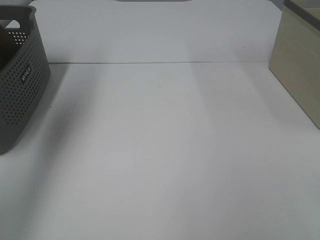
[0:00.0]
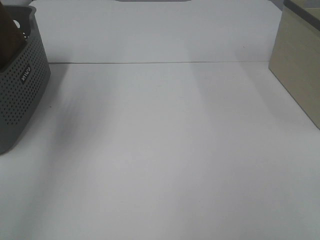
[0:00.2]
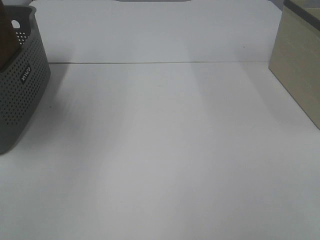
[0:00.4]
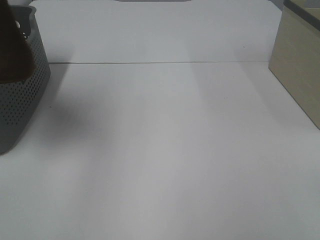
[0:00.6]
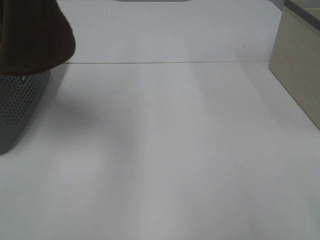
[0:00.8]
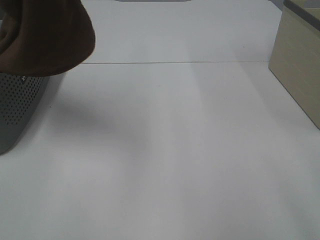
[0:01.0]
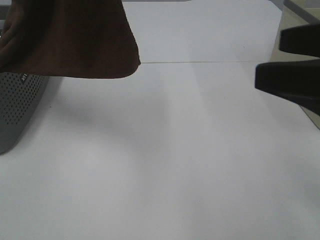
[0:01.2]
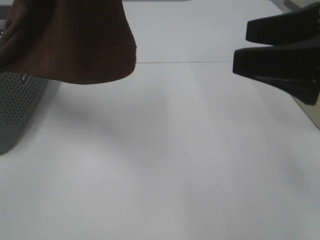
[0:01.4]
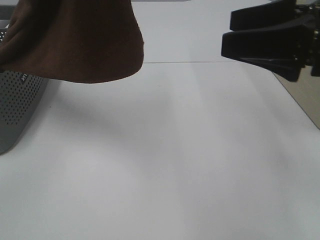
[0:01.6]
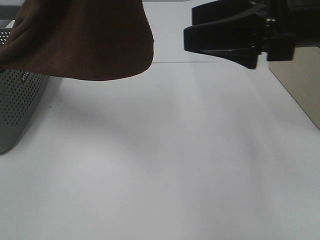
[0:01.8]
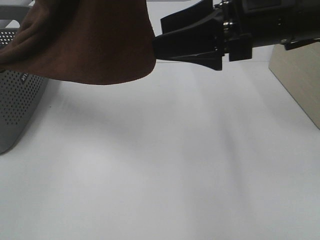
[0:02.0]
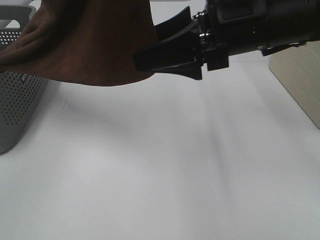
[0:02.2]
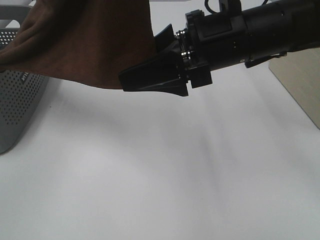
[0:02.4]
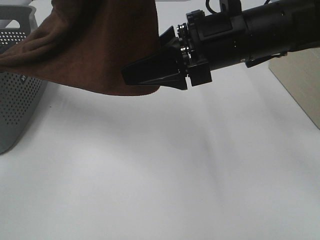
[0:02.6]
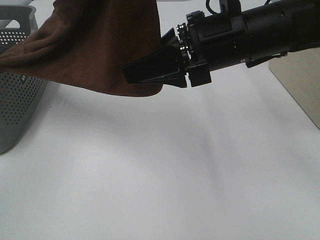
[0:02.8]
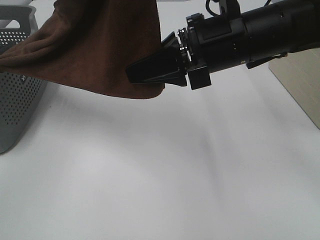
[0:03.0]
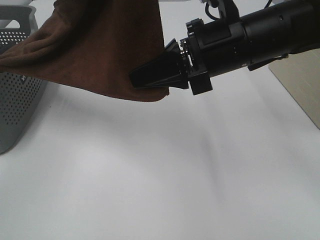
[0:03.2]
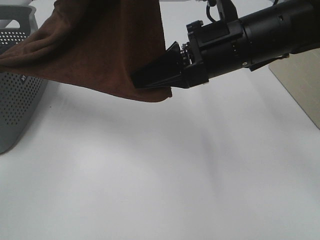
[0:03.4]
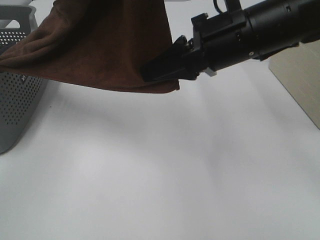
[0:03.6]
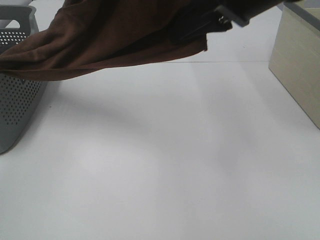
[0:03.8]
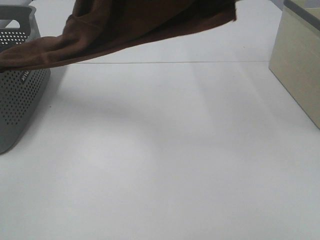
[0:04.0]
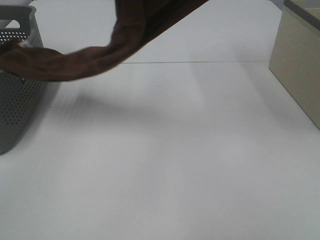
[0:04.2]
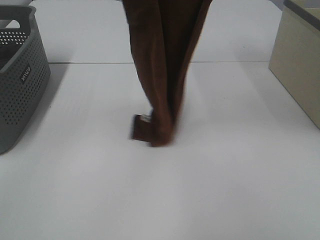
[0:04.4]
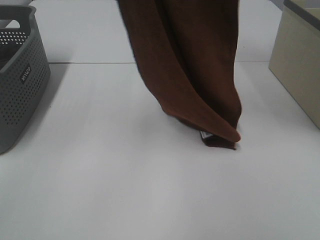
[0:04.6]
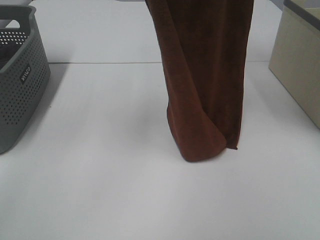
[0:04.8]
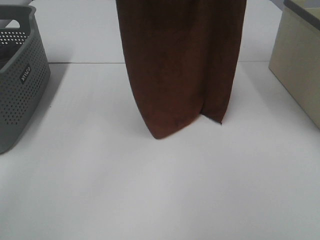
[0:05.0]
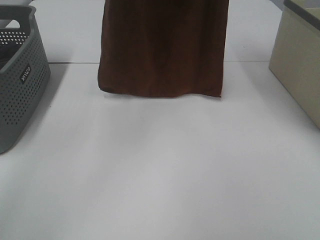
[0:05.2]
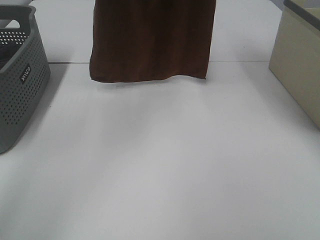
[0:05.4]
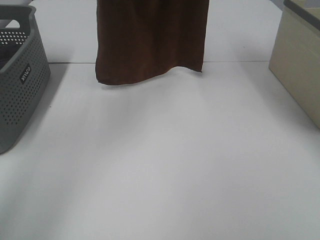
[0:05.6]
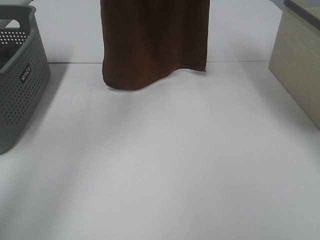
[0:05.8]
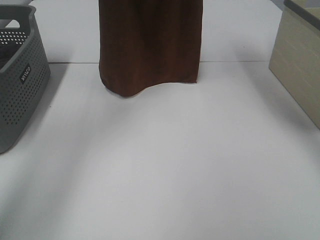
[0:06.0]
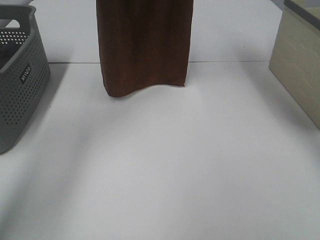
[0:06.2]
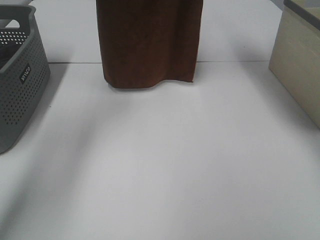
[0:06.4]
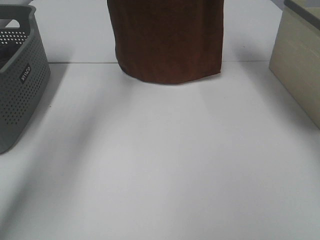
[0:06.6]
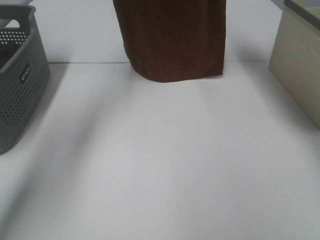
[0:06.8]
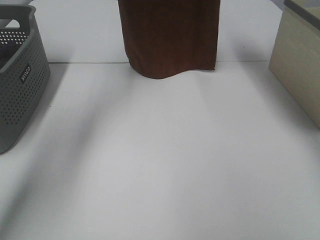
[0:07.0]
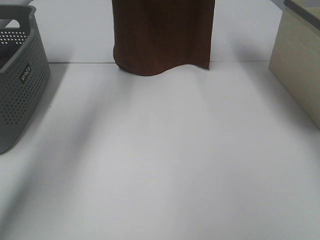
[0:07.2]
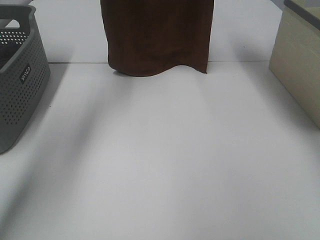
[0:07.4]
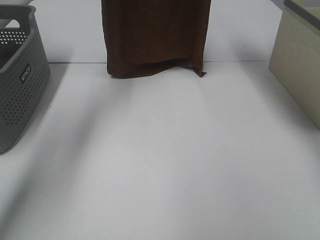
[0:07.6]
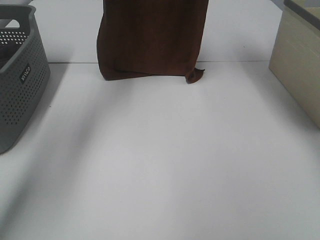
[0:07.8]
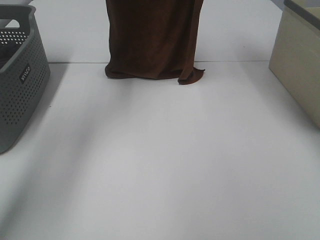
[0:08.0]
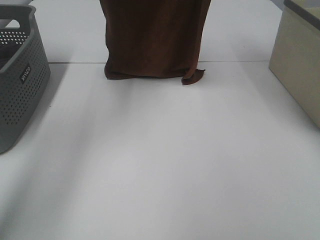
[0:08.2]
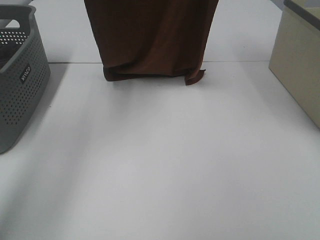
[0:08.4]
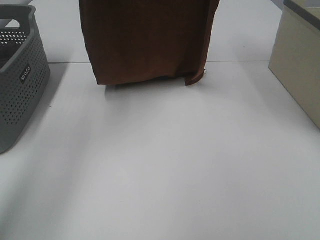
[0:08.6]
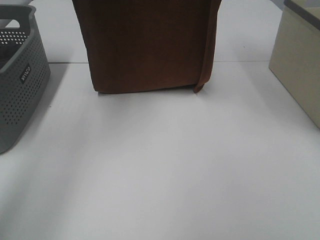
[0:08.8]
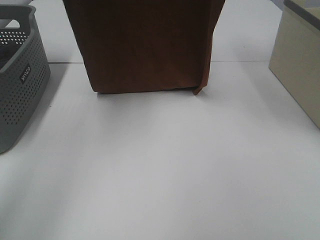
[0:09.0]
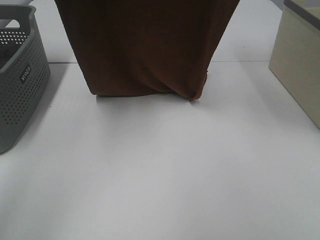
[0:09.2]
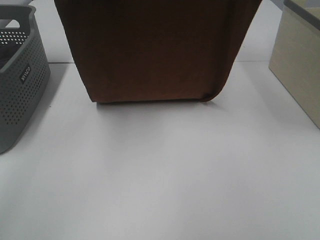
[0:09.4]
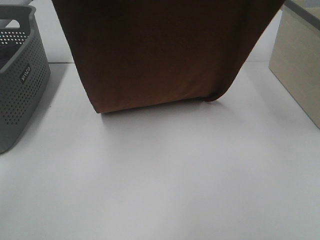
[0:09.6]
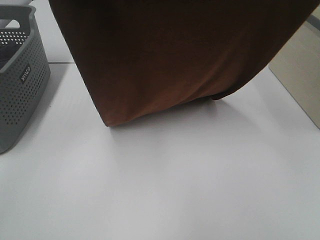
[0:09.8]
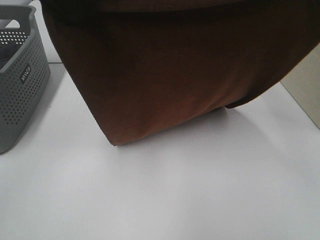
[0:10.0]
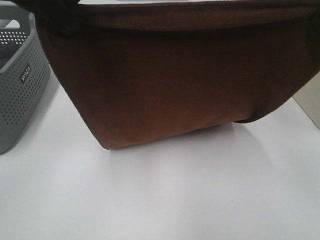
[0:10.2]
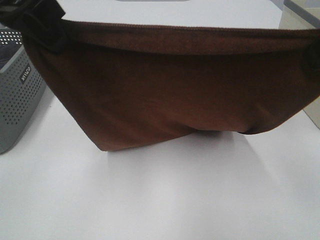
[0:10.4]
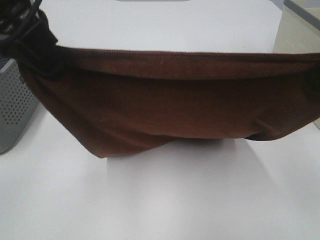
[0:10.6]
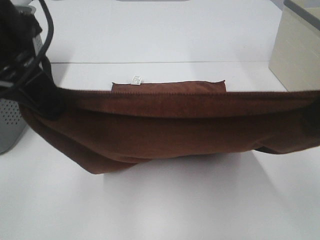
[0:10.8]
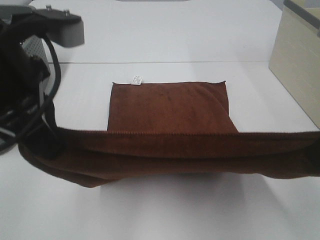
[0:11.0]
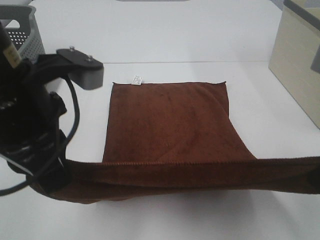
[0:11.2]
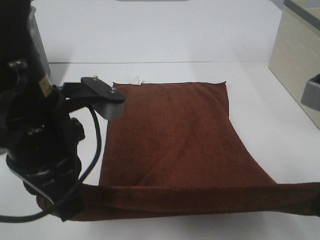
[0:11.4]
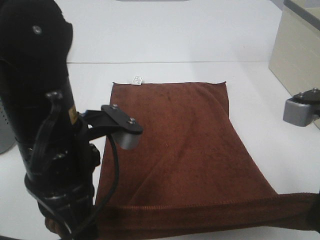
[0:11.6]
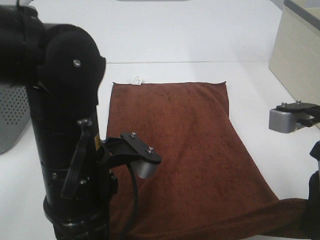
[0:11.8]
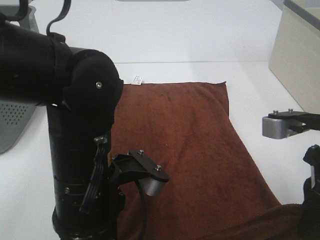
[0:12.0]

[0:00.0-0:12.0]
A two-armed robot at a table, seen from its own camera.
Task of the whole recording: Remove the towel and place it.
Step, 0.0 to 4.4 s: Right hand: grab a corner of the brown towel and straighten it.
Step, 4.6 to 9.4 s: Left hand: spread the brown towel flat on the table.
Step, 4.6 to 9.4 s: Right hand: spread the brown towel flat on the table.
0.0 to 1.6 s: The left gripper is displaced to the right, backward and upward by approximately 25 cm. The right gripper moves forward, about 25 cm.
1.6 to 3.0 s: The right gripper shifts about 10 cm to the left, and closes its fingers.
3.0 to 4.4 s: The right gripper moves upward, some 25 cm. Meanwhile the left gripper shifts by about 5 cm.
4.4 to 6.0 s: The two grippers go approximately 15 cm forward.
6.0 to 7.6 s: The right gripper changes place by about 5 cm. The left gripper moves forward, roughly 5 cm.
7.6 to 9.0 s: The grippers both shift backward by some 15 cm.
9.0 to 10.4 s: The grippers both shift backward and downward by roughly 15 cm.
10.4 to 12.0 s: The right gripper goes approximately 15 cm downward; the left gripper shifts about 20 cm downward and to the right.

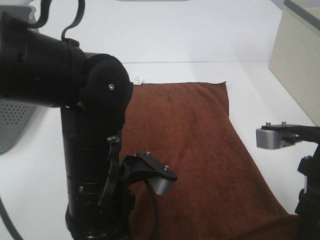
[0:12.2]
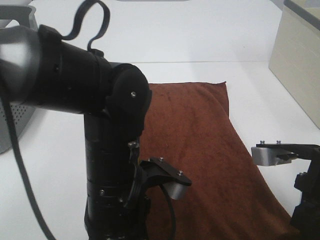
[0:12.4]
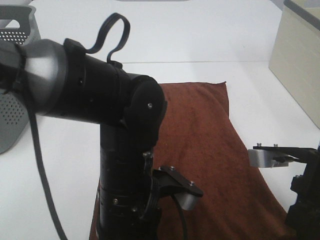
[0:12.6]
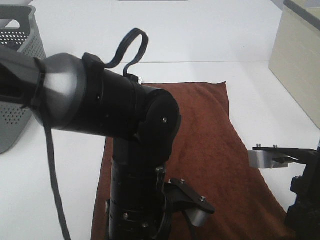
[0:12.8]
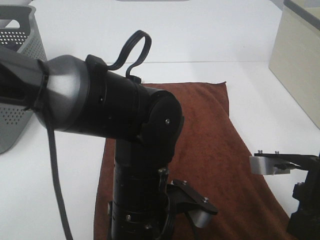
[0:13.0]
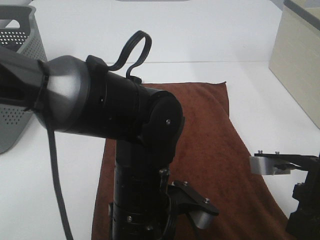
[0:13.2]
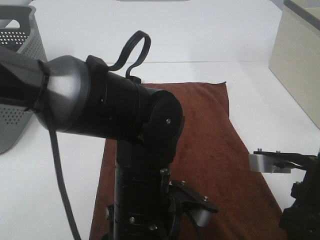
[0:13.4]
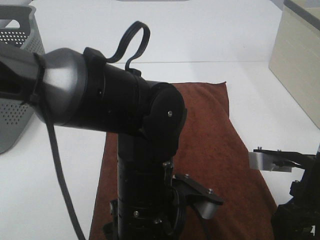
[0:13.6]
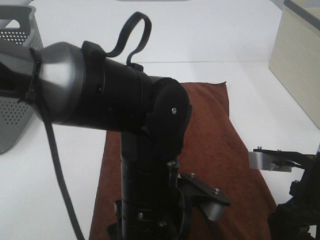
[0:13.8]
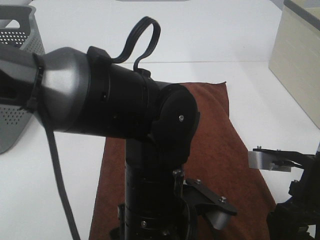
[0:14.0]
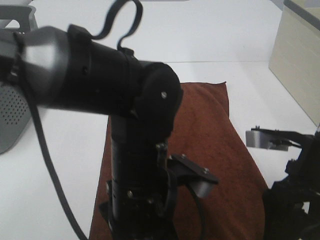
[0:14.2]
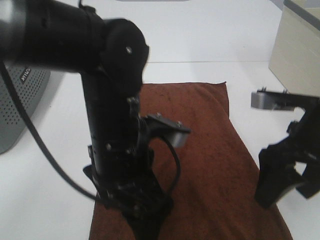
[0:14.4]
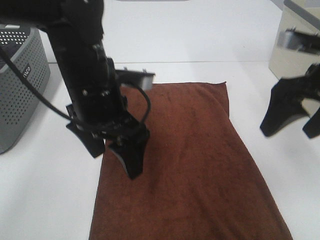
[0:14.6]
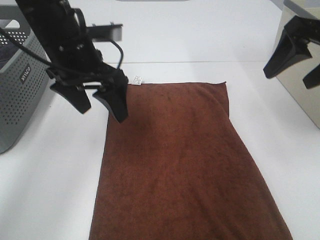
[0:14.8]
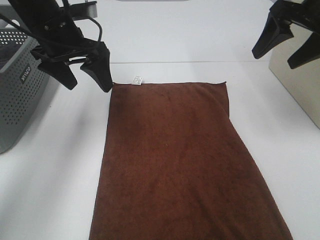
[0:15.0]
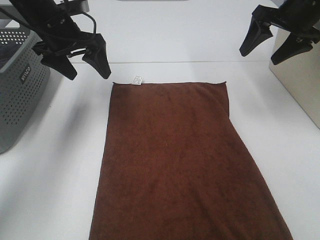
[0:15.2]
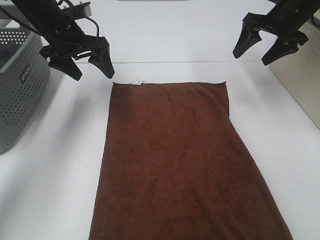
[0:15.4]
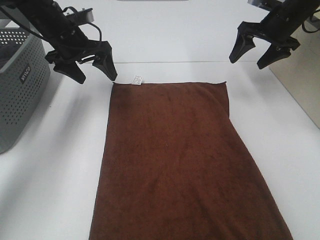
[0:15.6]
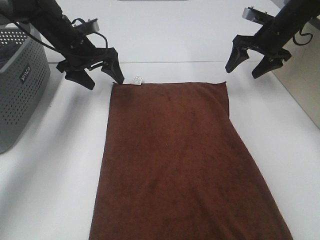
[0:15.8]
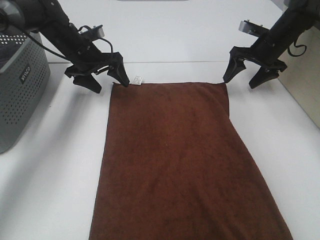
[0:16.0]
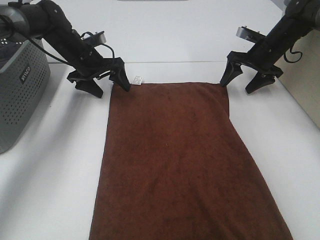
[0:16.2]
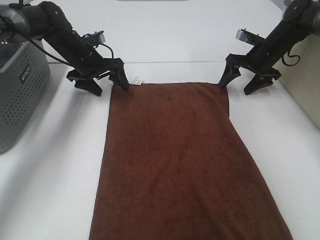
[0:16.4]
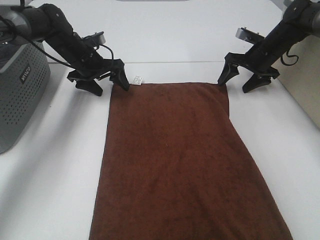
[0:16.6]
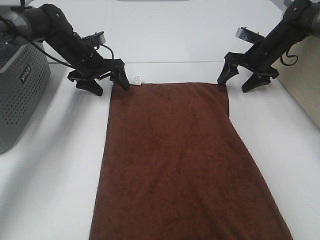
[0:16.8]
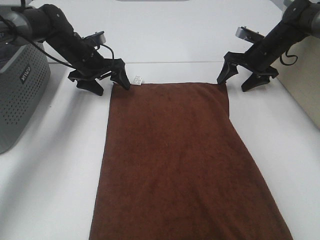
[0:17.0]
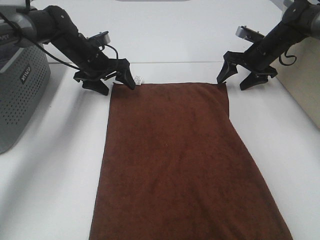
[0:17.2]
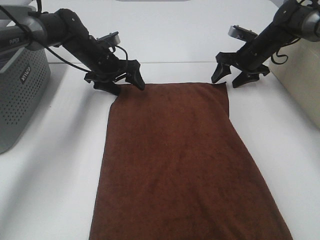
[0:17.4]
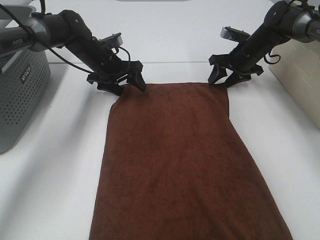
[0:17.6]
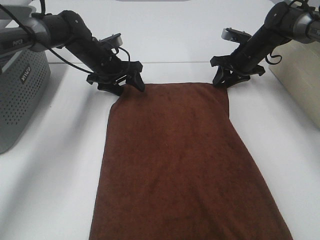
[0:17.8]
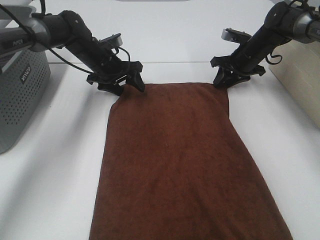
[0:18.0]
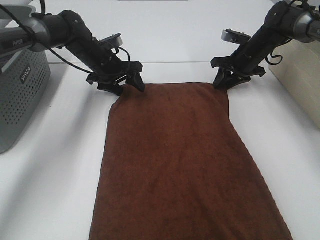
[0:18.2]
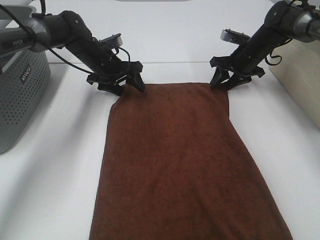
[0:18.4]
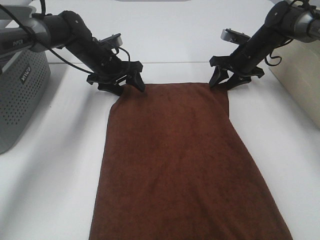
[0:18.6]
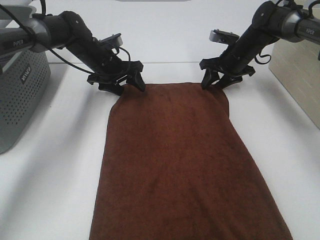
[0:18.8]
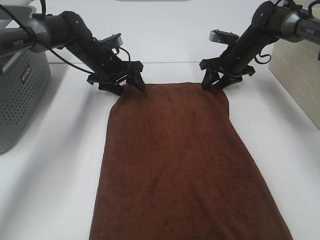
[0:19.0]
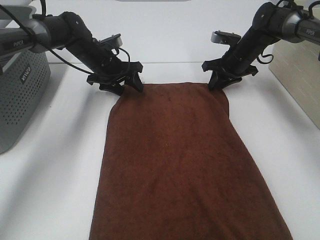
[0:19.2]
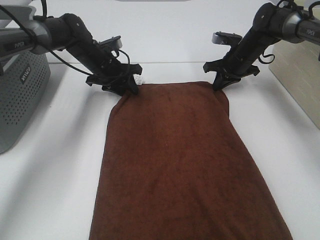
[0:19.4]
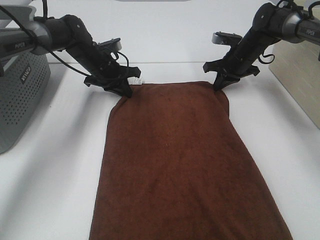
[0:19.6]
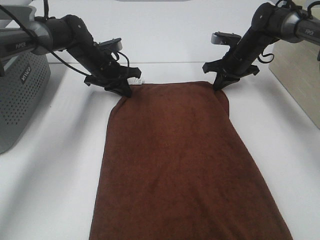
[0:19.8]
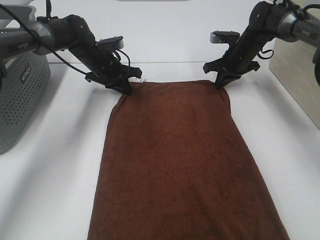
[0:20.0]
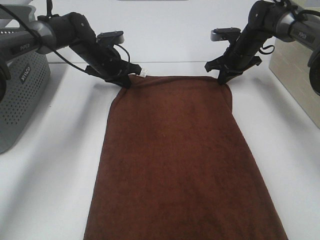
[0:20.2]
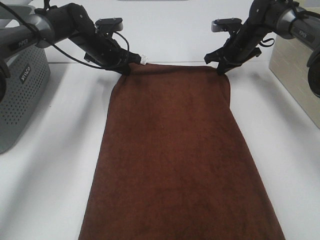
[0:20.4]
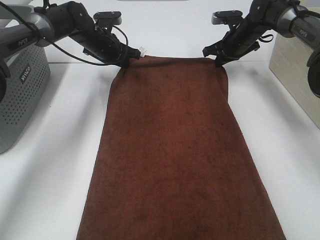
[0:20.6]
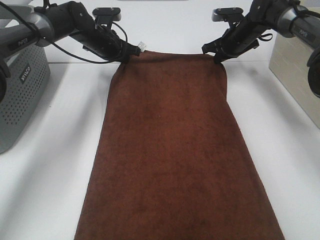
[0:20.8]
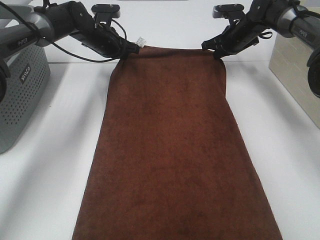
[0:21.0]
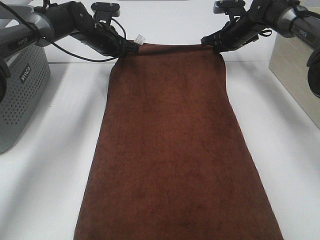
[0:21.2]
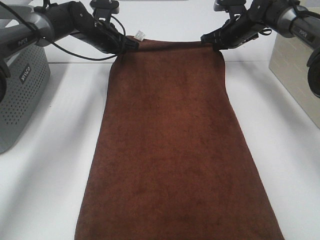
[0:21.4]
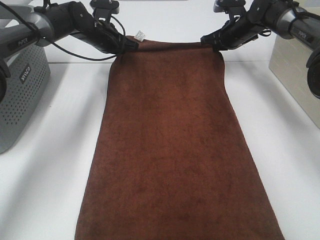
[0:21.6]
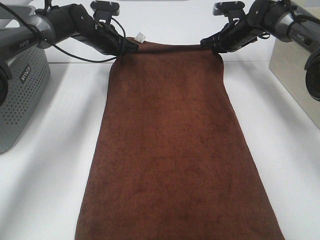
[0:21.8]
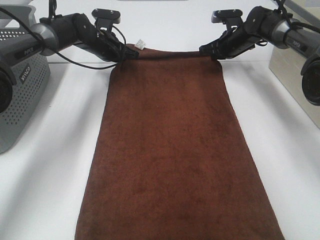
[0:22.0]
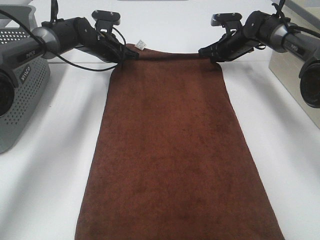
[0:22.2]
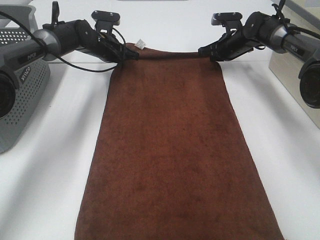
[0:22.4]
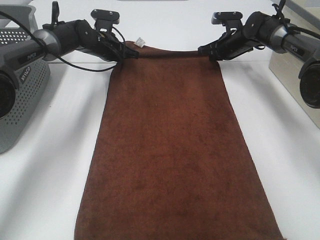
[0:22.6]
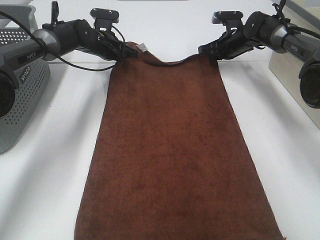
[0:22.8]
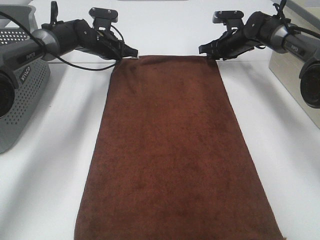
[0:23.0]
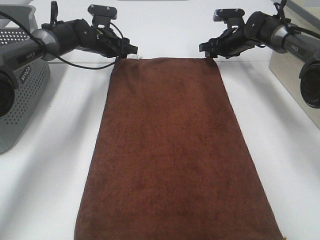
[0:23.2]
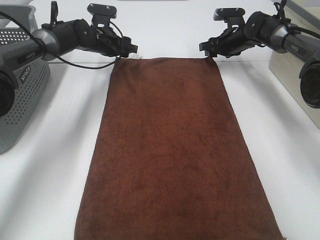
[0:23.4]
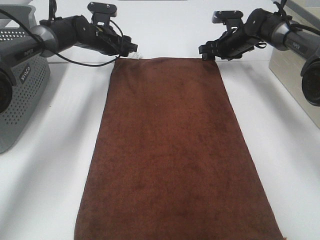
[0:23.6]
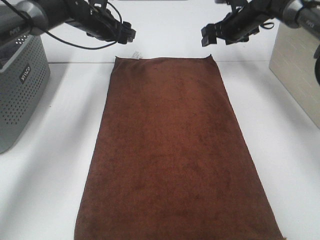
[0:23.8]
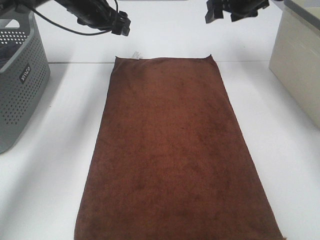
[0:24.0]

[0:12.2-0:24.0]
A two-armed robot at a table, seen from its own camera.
Task of the whole recording: Remove the towel and place it.
Step, 12.2 to 17.4 s: Left hand:adjust the brown towel.
Step, 12.2 to 17.4 s: Right hand:adjust the brown towel.
12.2 to 13.6 s: The right gripper opens up. Meanwhile the left gripper is displaced to the right by roughly 5 cm, and opens up.
13.6 to 15.2 s: The right gripper goes about 25 cm forward. Meanwhile the left gripper is displaced forward and to the left by approximately 35 cm.
15.2 to 16.6 s: The grippers both shift downward and forward by approximately 15 cm.
16.6 to 18.2 s: The right gripper closes up.
18.2 to 19.6 s: The right gripper closes up; the left gripper closes up.
19.6 to 21.0 s: The right gripper heads upward, covering some 5 cm, while the left gripper ends up about 5 cm from where it was.
21.0 to 22.6 s: There are only small adjustments of the grippers.
22.6 to 24.0 s: Both grippers travel together upward, approximately 15 cm. The right gripper opens its fingers. The left gripper opens.
